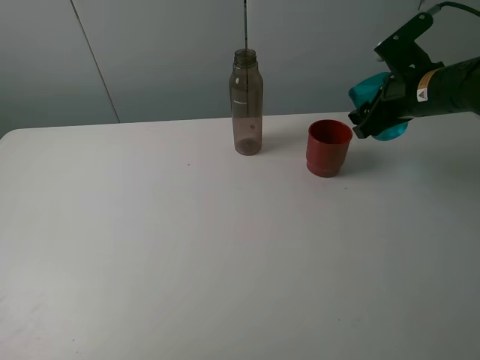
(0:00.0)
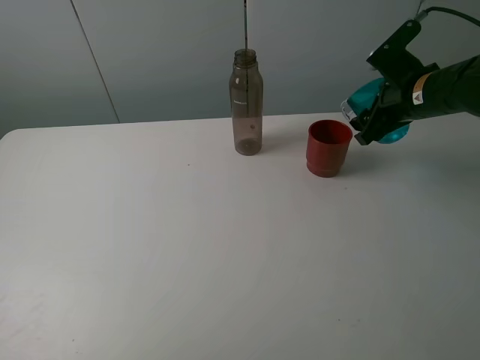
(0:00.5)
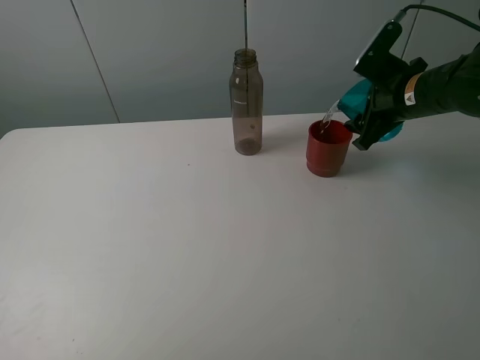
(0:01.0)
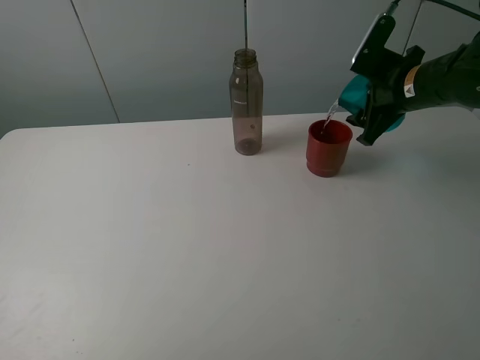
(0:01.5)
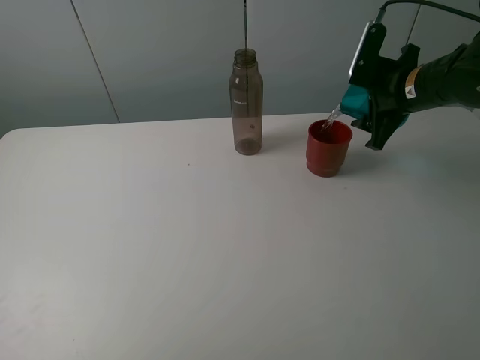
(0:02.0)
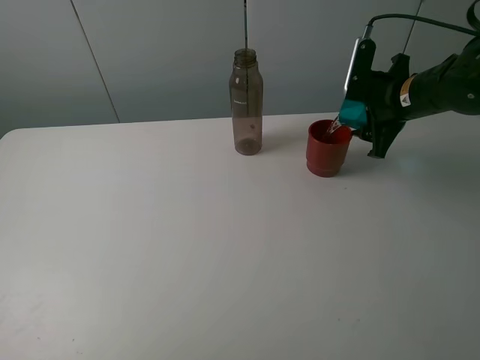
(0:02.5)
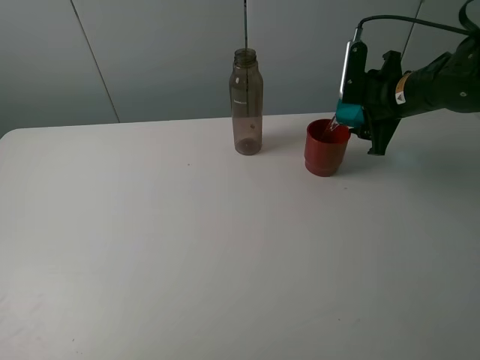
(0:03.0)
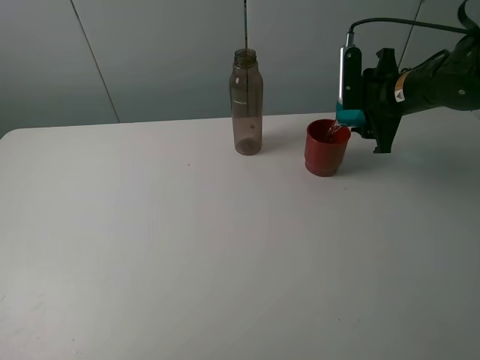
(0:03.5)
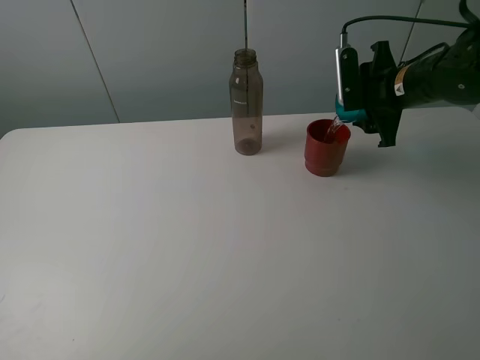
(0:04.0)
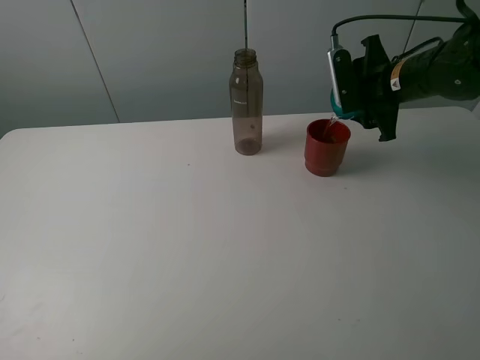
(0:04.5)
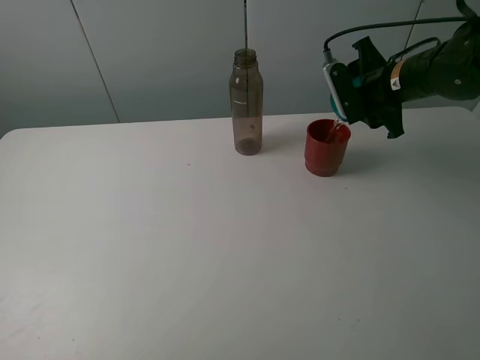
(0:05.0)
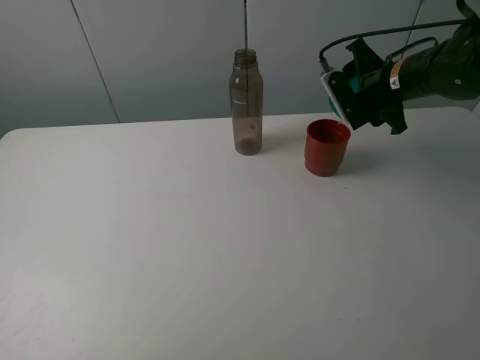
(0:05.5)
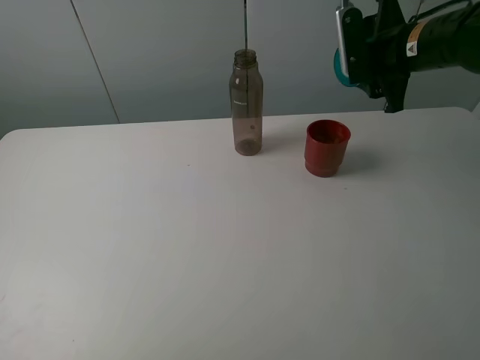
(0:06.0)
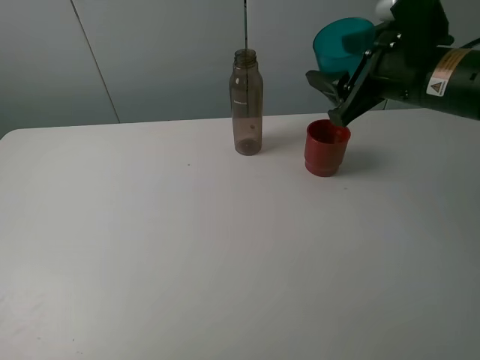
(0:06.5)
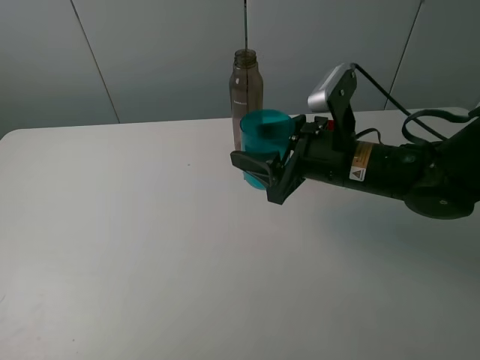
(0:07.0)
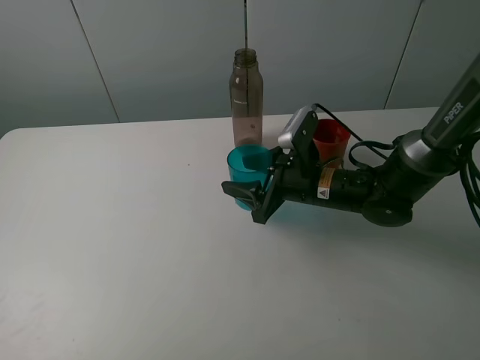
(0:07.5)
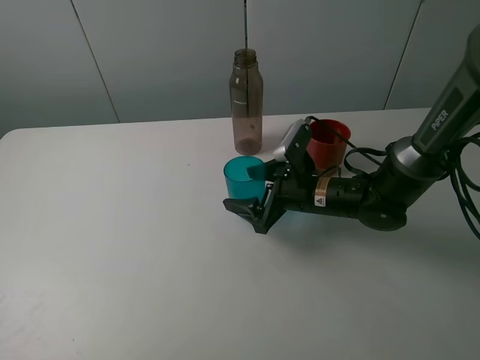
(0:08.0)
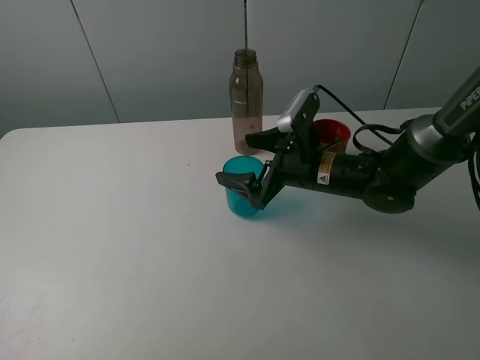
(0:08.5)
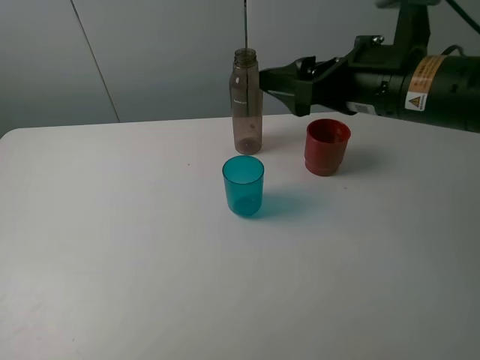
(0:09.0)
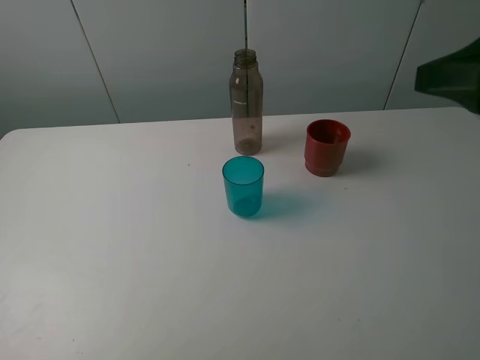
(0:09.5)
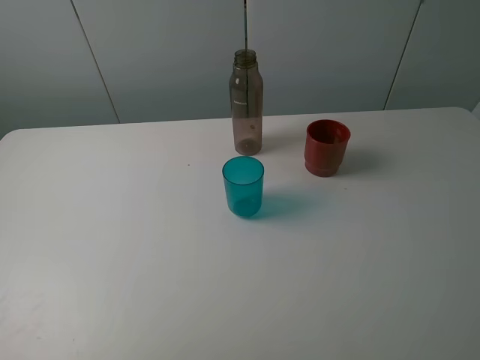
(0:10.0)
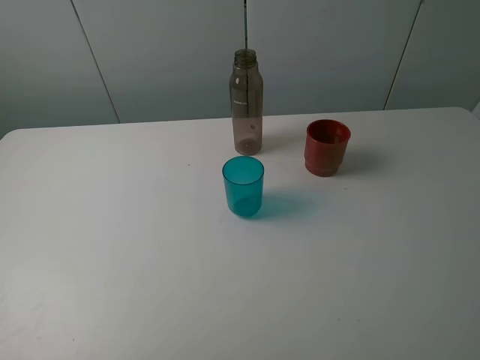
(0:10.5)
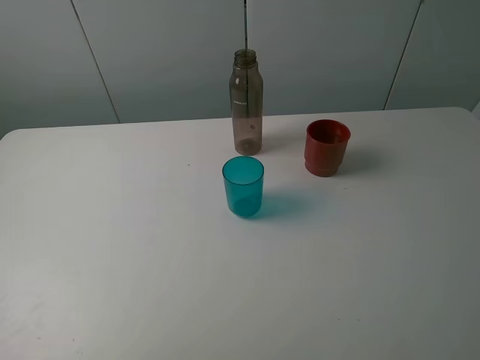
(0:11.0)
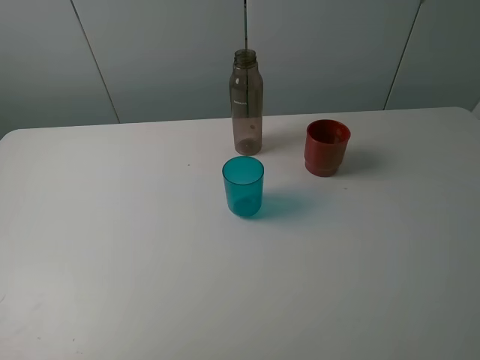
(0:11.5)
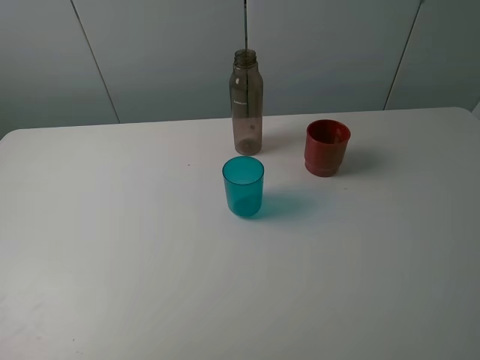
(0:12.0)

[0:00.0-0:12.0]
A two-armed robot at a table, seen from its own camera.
Task of the whole recording: pick up the bottle and pour water into the cup, then pick up the cup containing water and pour it into another cup.
Step, 0:00.0 to 0:05.5: Pour water from blue cup to red cup with the right gripper.
Step, 0:06.0 to 0:08.0: Place the blue cup with the right gripper.
0:04.0 to 0:06.0: The right gripper heads upward, covering approximately 5 cm.
0:06.0 to 0:08.0: The right gripper moves downward and to the left, some 20 cm, and opens.
0:08.0 to 0:10.0: The right gripper moves backward, upward and to the right, roughly 50 cm.
